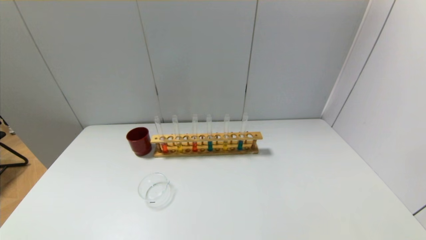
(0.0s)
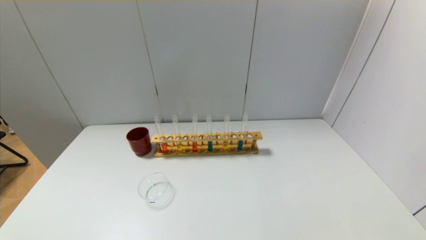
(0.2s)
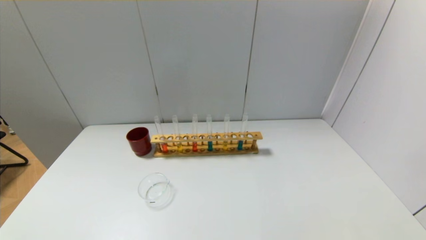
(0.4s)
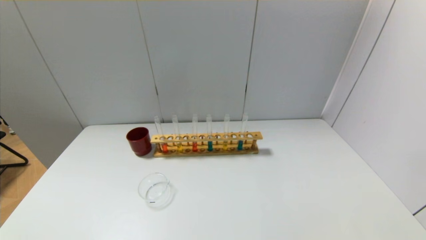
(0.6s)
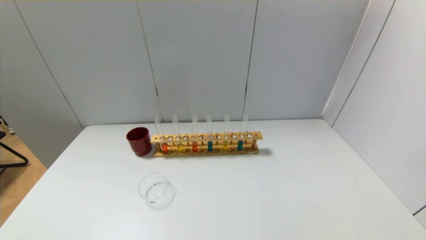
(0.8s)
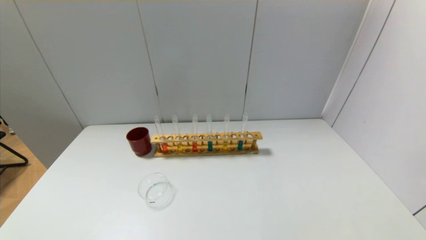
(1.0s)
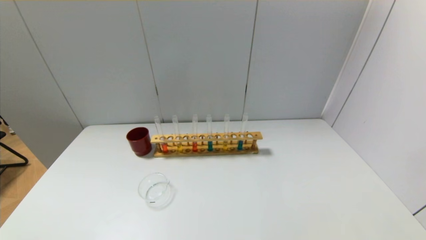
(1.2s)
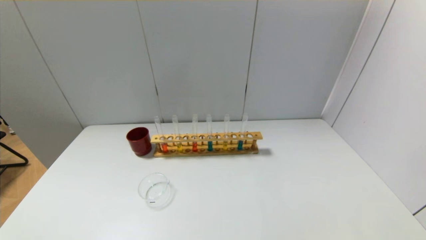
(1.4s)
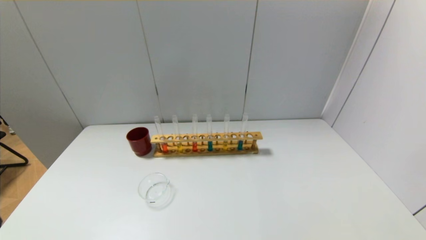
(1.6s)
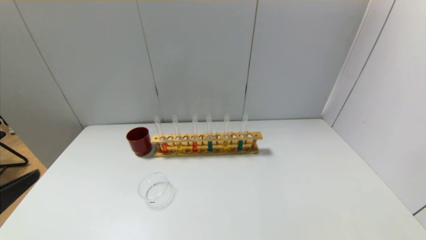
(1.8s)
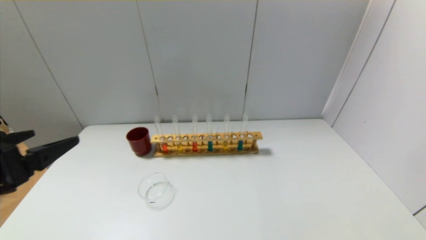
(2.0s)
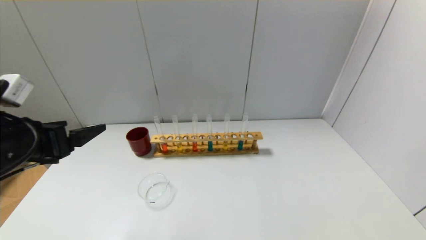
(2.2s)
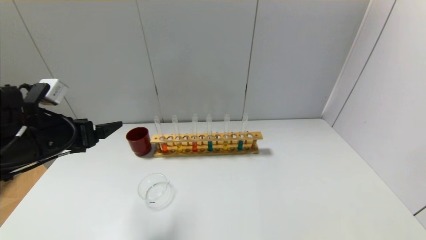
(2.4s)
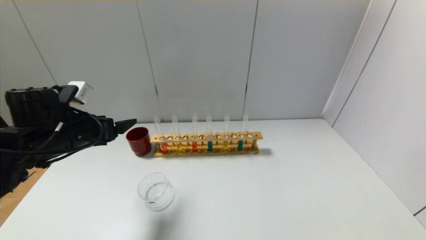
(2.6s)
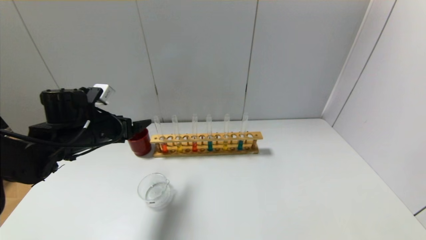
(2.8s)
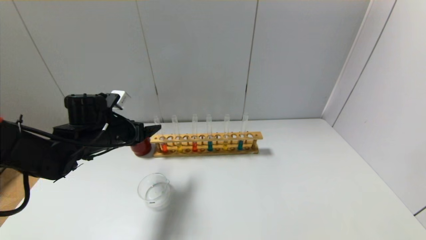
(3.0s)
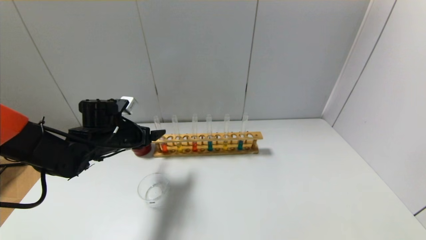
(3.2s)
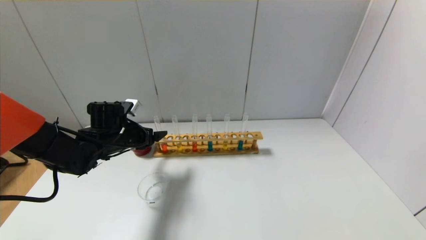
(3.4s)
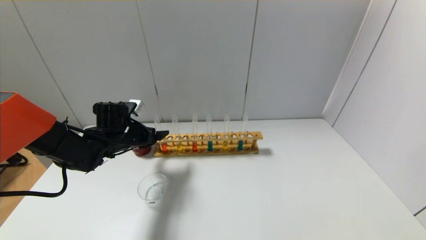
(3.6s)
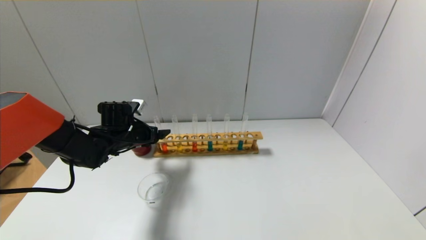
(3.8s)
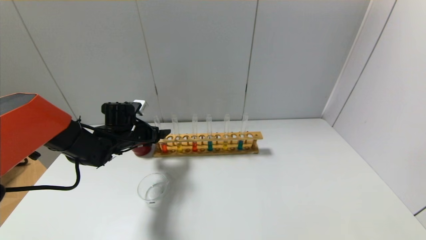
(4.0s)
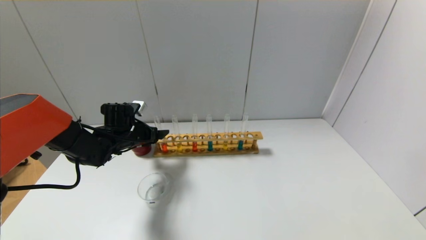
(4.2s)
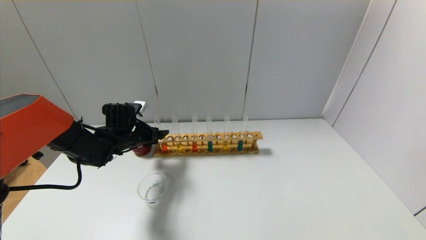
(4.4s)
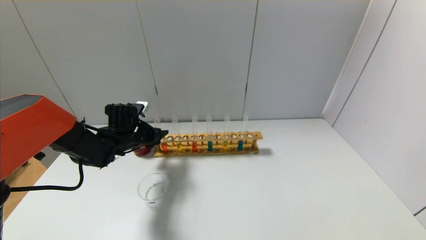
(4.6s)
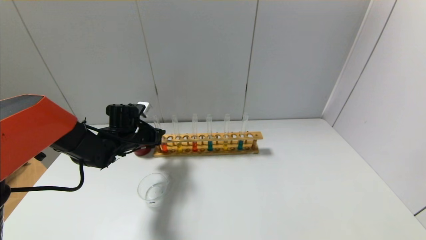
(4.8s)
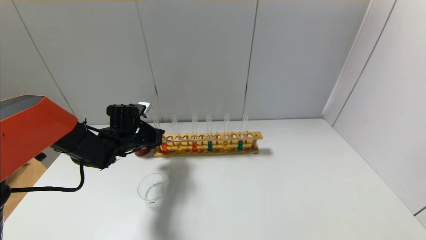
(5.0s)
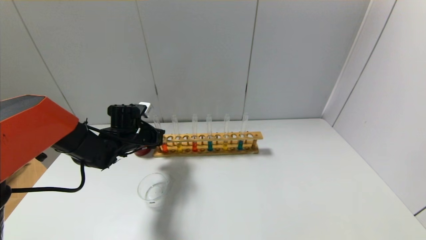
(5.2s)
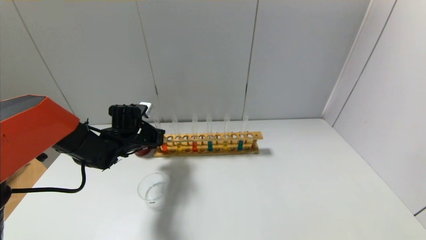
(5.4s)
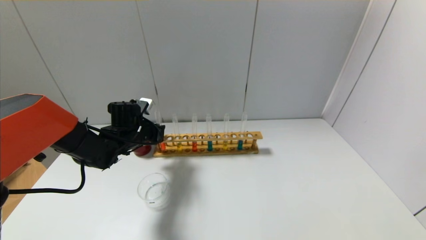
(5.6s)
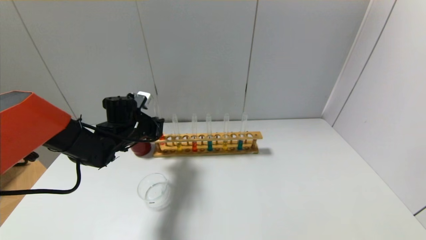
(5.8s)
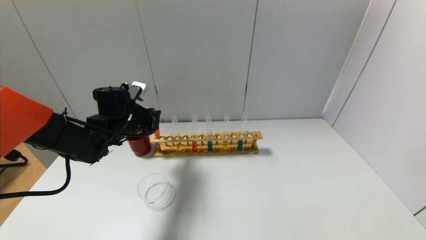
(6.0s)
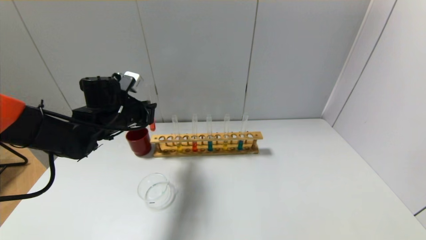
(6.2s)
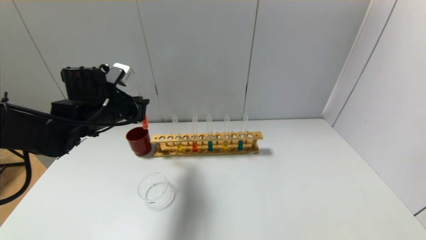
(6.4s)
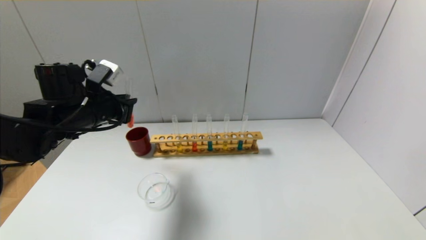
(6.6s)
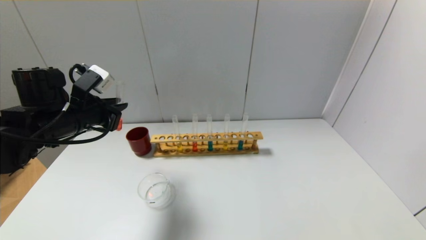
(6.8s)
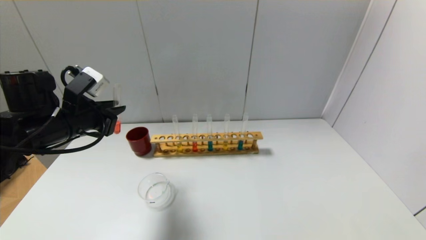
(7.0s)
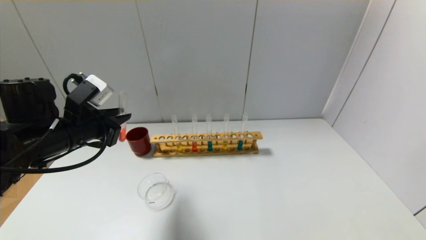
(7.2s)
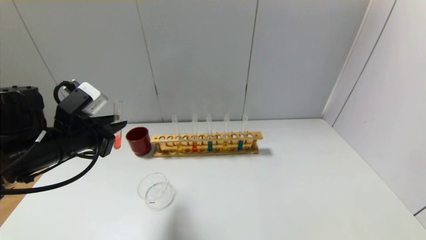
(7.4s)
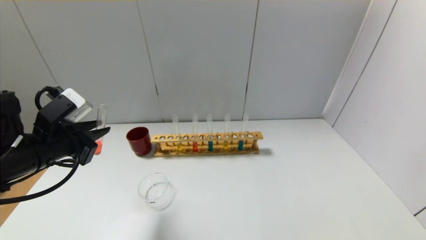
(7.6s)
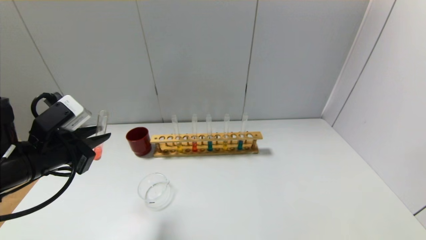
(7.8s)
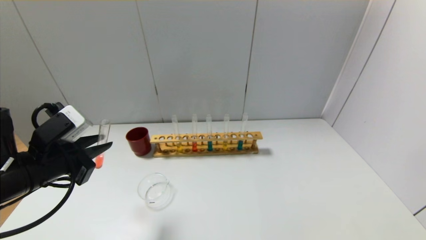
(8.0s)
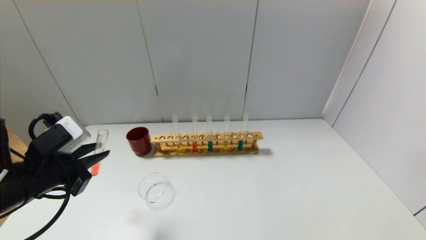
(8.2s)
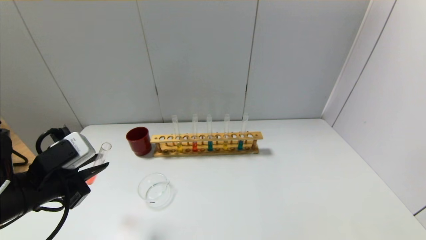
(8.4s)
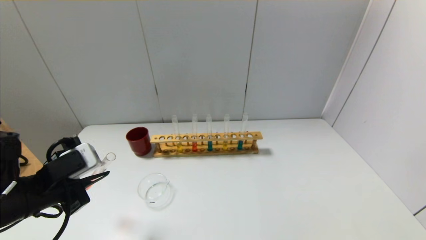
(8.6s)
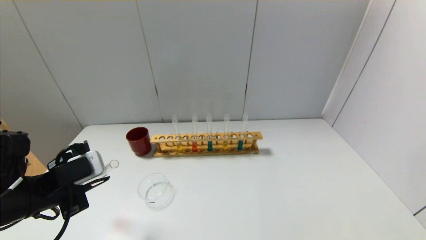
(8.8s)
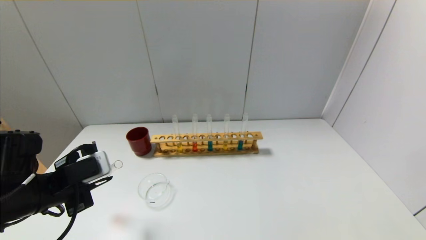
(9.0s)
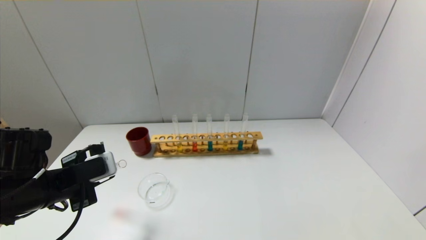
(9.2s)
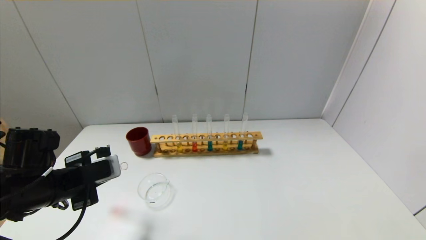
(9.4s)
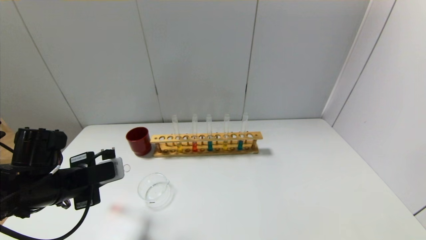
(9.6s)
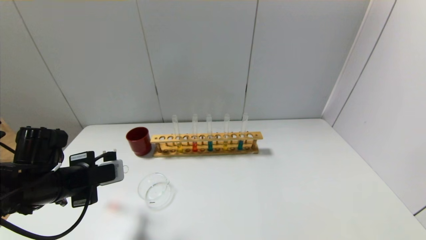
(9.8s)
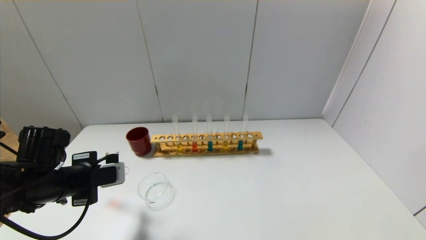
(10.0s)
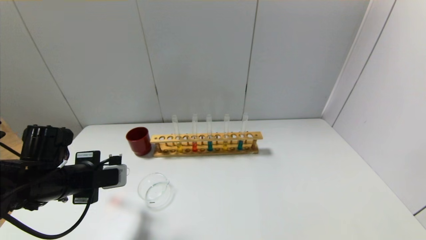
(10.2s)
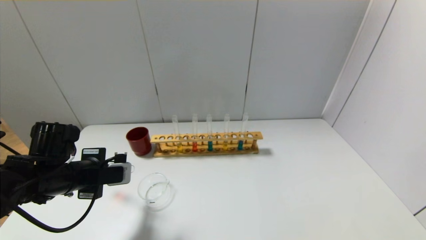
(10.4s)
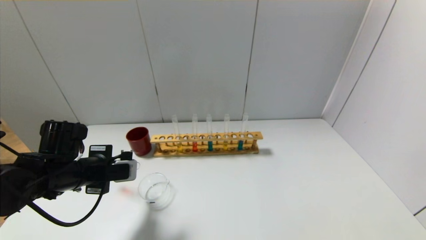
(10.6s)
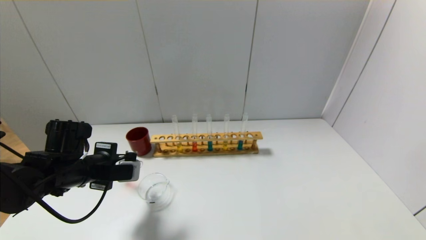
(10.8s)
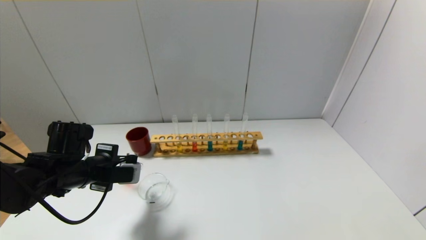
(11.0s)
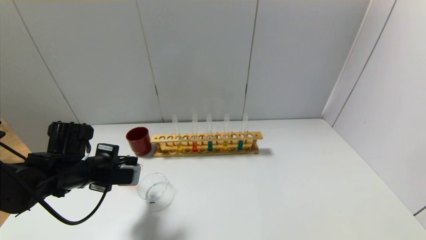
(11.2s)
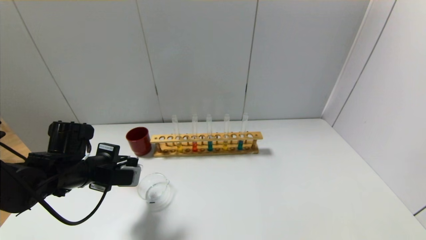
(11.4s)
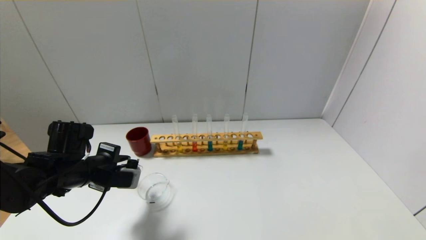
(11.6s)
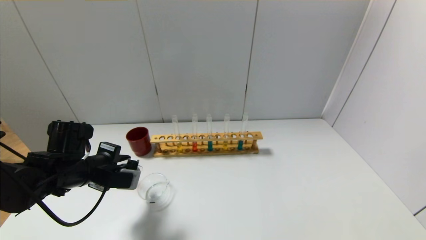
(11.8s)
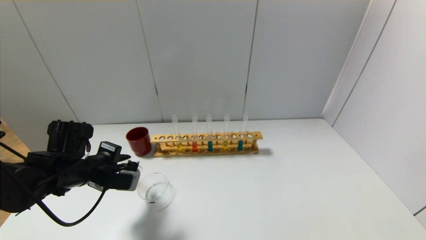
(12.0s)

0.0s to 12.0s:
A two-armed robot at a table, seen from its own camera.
Step, 0.0s to 5.2s: Grasp the red reagent with the left gripper.
1.6s to 3.0s: The left gripper moves forward, about 35 cm.
3.0s to 4.4s: The left gripper moves forward and downward, roughly 10 cm.
4.4s to 6.0s: The left gripper moves upward, some 5 cm, and closes its fingers.
6.0s to 7.6s: The left gripper moves backward, some 15 cm.
7.6s to 9.0s: The left gripper is displaced downward by some 5 cm.
9.0s to 10.4s: The left gripper shifts some 5 cm forward.
10.4s to 12.0s: The grippers move only a little.

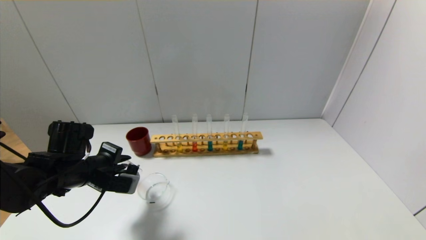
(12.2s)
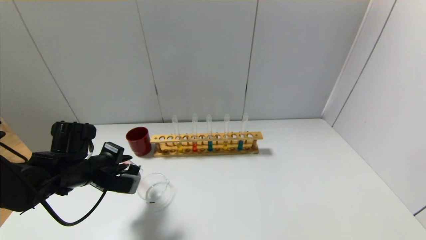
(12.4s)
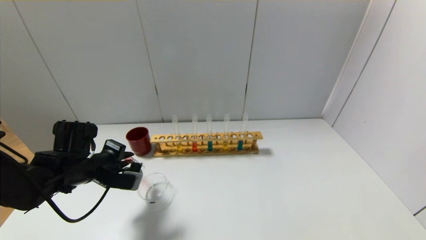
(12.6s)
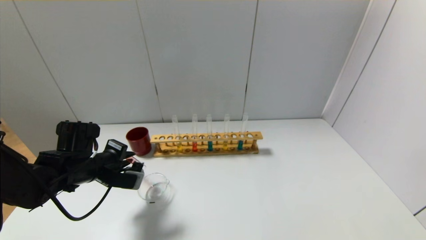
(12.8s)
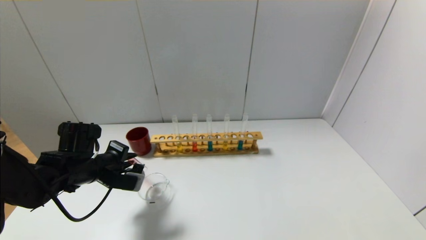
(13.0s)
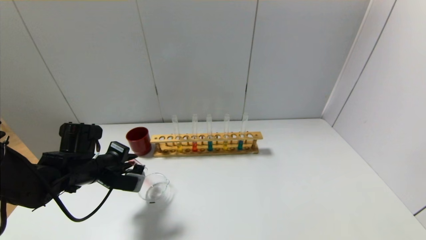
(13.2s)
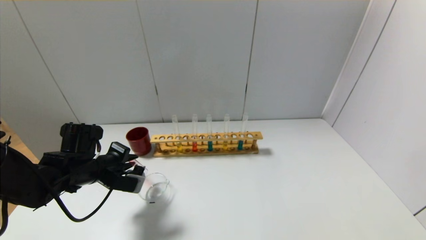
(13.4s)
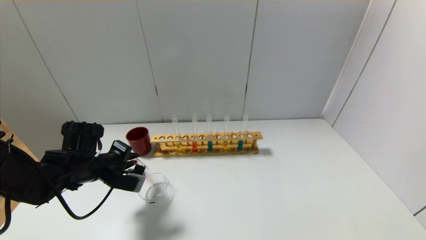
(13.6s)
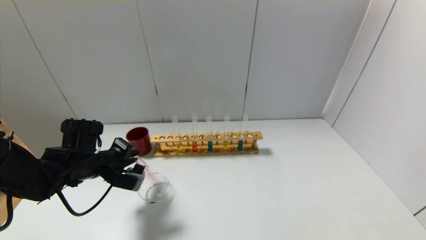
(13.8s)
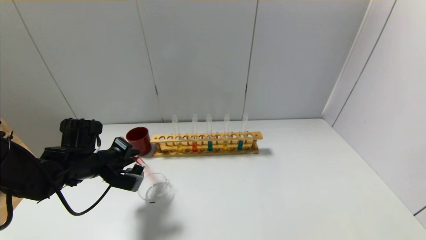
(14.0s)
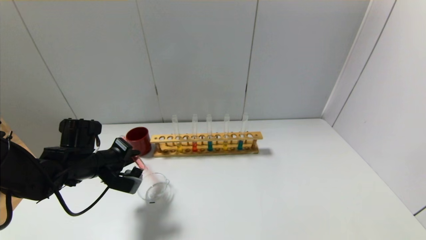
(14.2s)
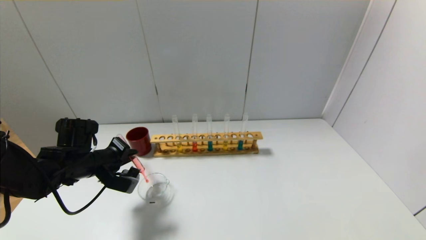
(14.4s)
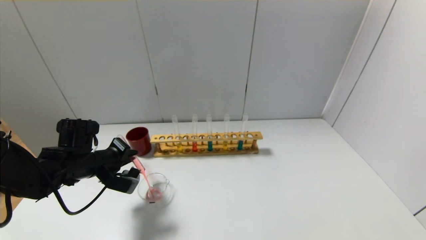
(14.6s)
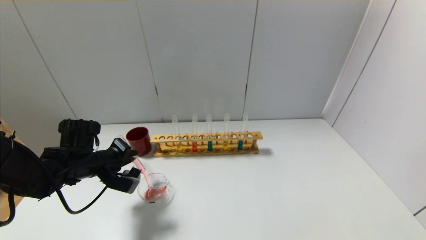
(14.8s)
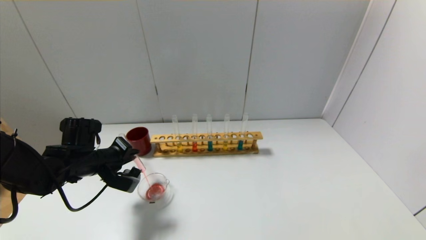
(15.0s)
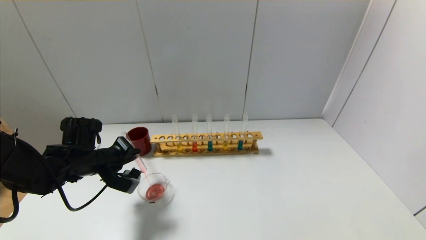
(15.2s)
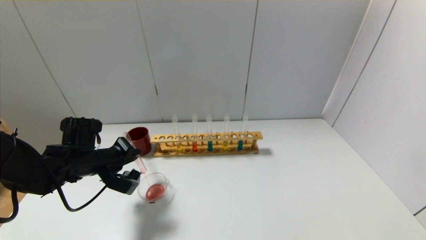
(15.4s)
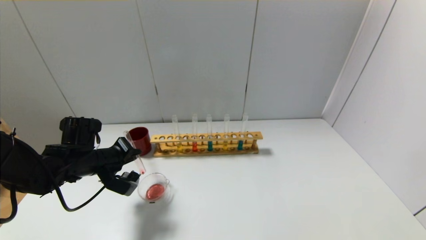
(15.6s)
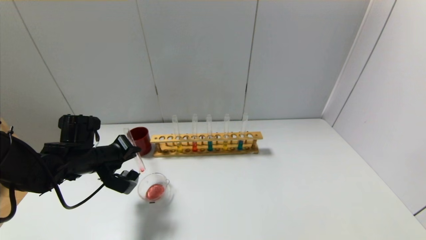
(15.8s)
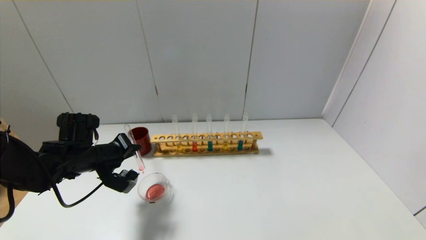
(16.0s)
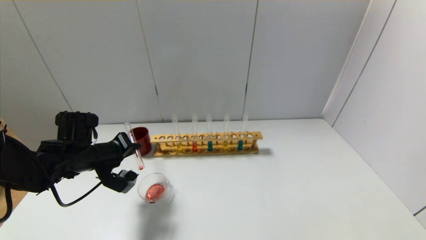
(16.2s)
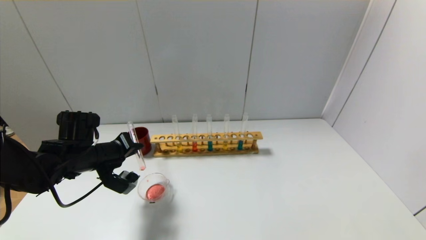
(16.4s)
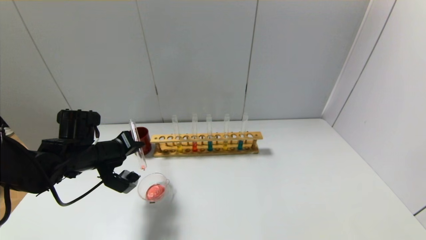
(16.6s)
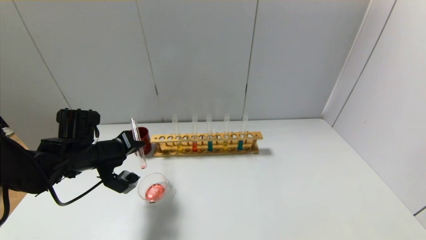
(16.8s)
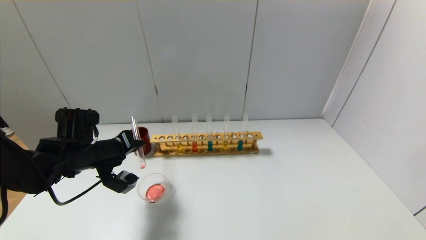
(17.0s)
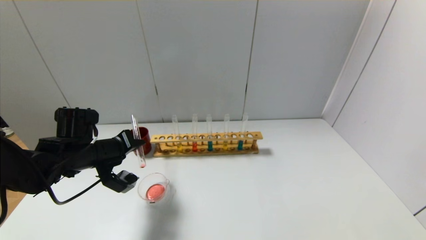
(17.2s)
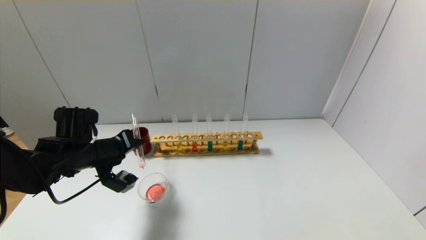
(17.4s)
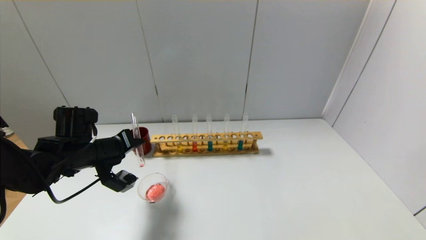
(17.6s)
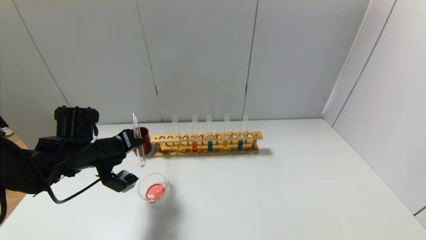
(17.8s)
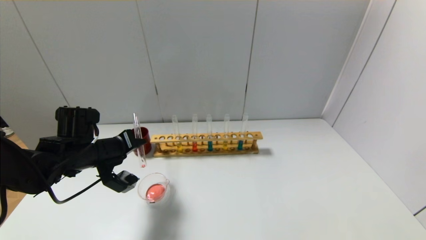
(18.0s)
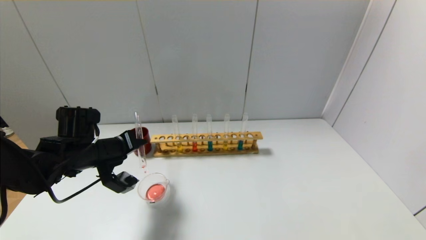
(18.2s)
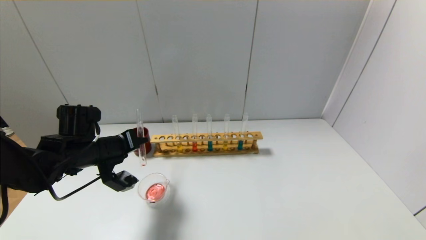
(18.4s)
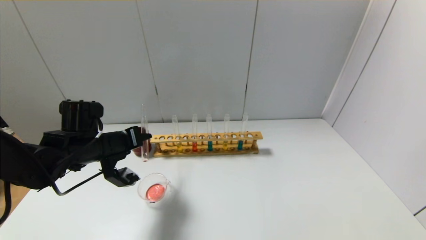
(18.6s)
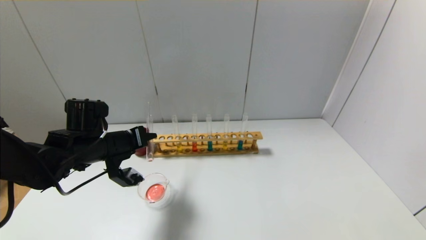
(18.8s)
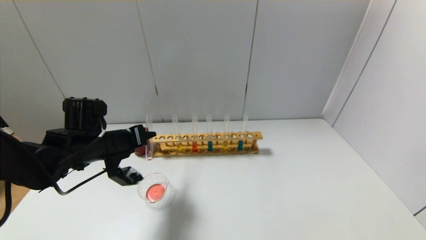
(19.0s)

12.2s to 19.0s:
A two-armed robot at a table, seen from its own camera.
12.2s to 15.0s: The grippers stay close to where they were, moving slightly.
15.0s to 16.2s: The grippers make only small movements.
16.2s to 17.6s: The grippers move only a little.
17.6s to 19.0s: The grippers move only a little.
